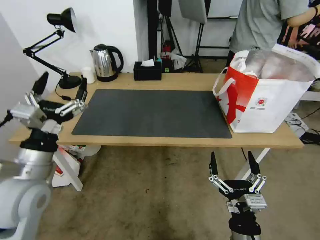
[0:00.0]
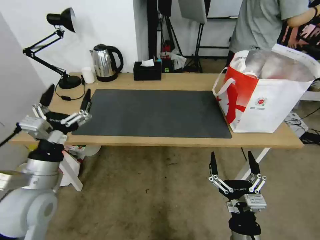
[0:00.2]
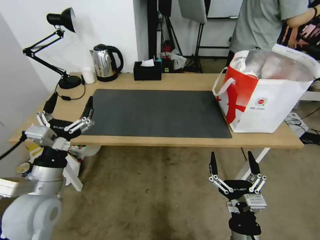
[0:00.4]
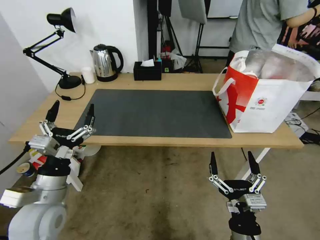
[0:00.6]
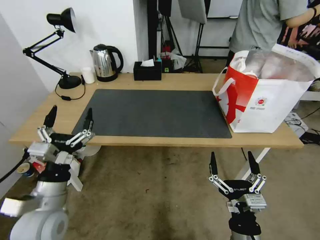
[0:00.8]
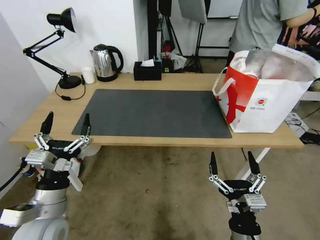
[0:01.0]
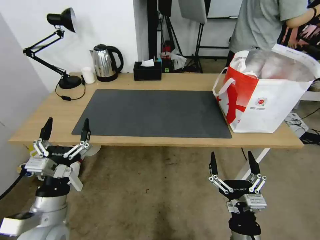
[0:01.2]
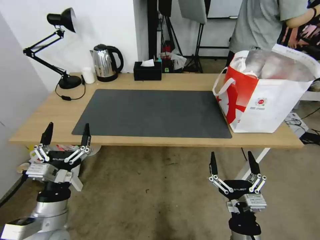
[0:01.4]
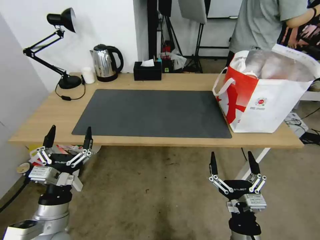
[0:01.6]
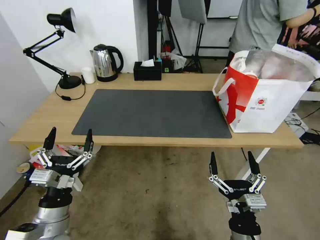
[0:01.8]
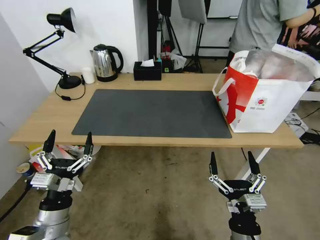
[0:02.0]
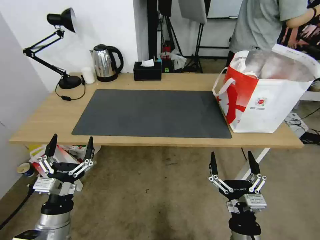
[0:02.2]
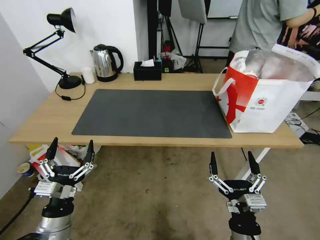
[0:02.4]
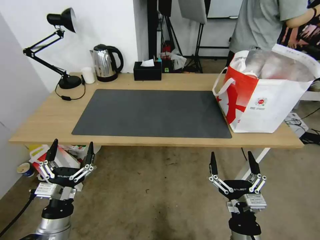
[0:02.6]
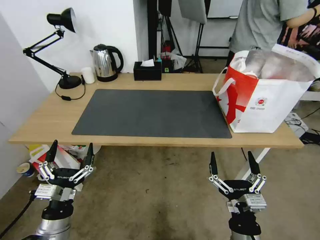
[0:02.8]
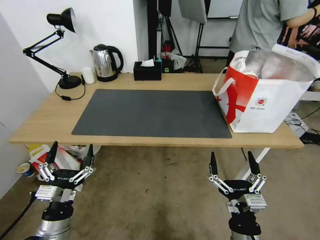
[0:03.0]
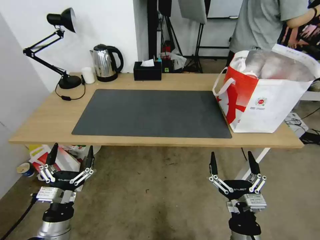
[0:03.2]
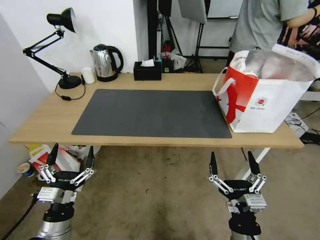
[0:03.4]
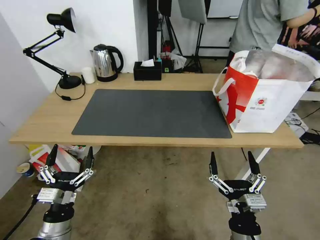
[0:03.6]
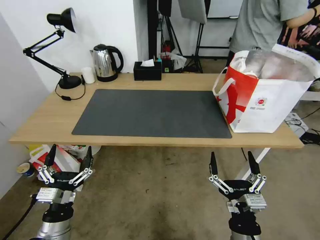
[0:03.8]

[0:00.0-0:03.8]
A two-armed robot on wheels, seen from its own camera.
Task of the whole recording: Pick up the trash from the table and place it into the takeout bag.
0:00.0 to 0:01.2: The left gripper shifts some 10 cm downward and backward.
0:01.2 to 0:02.6: The left gripper travels downward by approximately 5 cm.
0:02.6 to 0:03.8: The grippers stay close to where they were, moving slightly.
